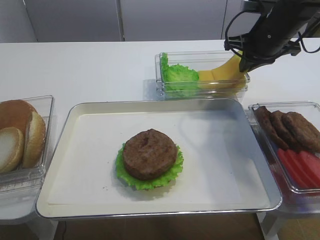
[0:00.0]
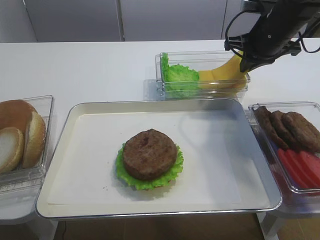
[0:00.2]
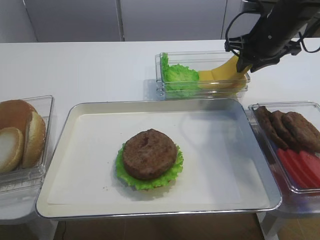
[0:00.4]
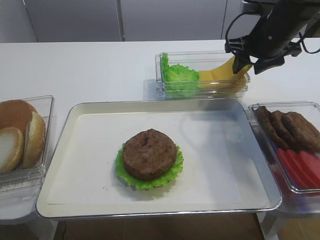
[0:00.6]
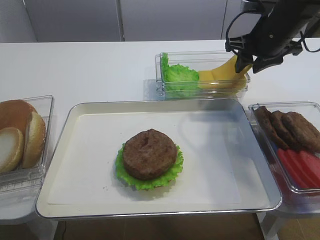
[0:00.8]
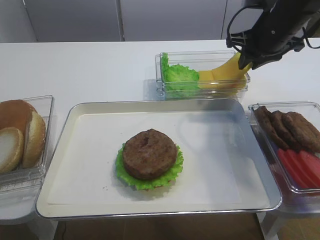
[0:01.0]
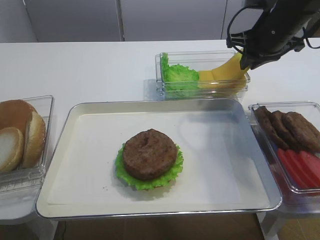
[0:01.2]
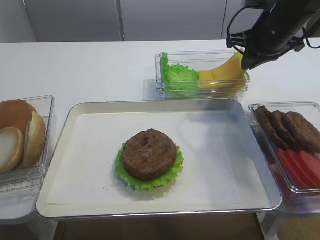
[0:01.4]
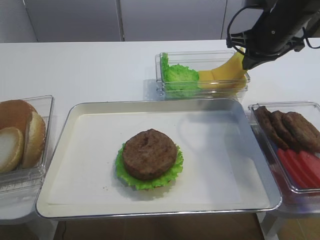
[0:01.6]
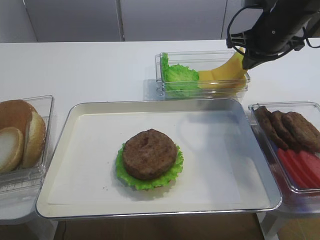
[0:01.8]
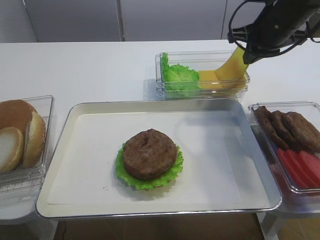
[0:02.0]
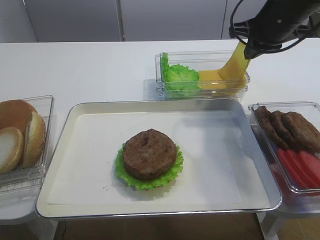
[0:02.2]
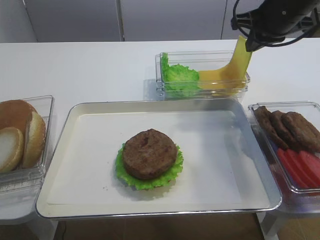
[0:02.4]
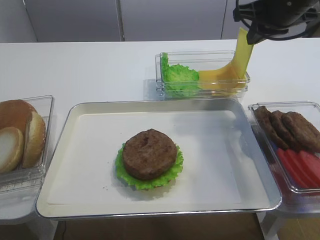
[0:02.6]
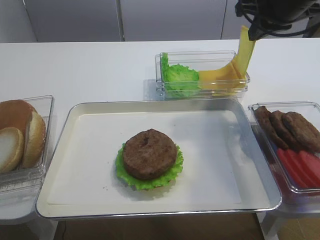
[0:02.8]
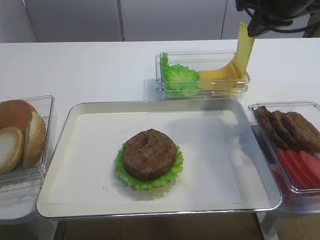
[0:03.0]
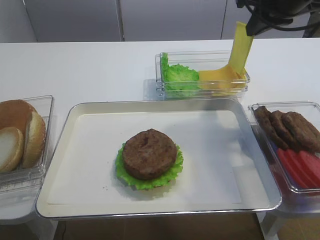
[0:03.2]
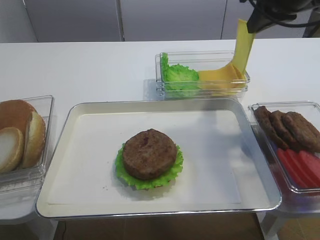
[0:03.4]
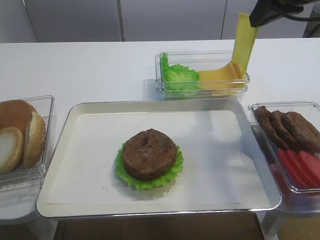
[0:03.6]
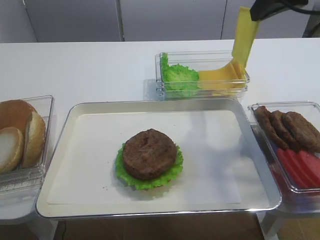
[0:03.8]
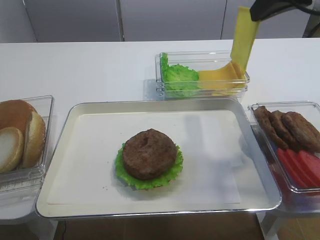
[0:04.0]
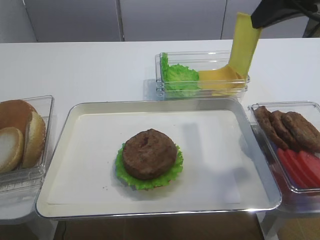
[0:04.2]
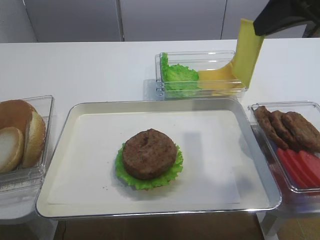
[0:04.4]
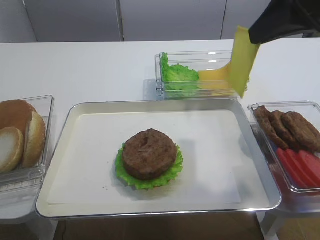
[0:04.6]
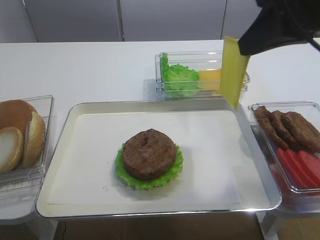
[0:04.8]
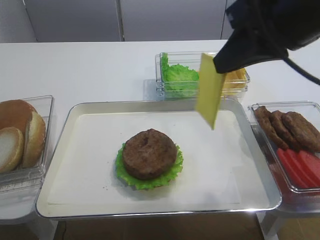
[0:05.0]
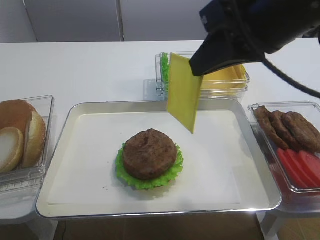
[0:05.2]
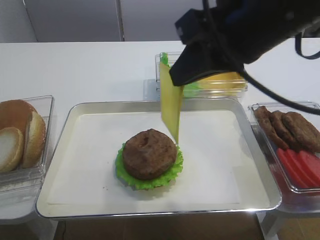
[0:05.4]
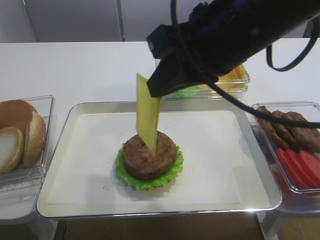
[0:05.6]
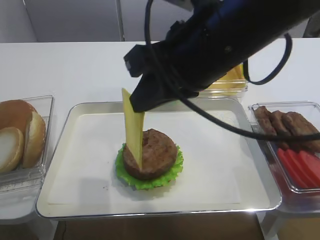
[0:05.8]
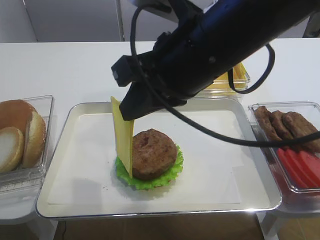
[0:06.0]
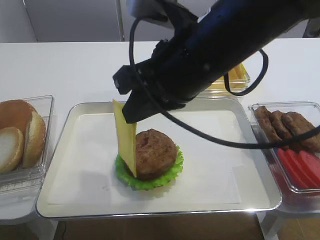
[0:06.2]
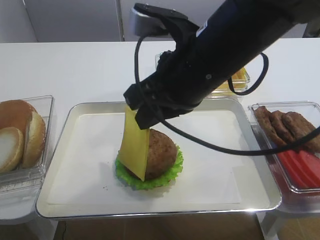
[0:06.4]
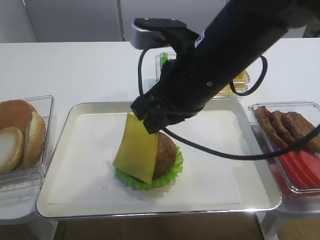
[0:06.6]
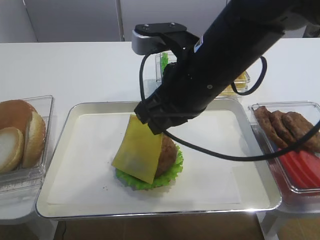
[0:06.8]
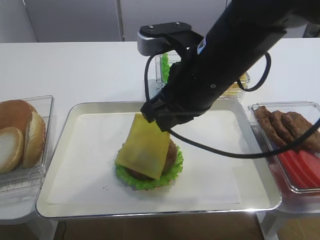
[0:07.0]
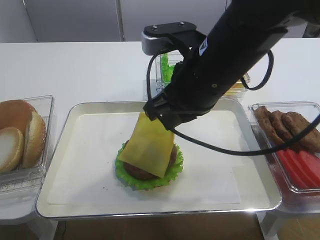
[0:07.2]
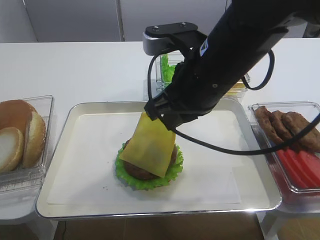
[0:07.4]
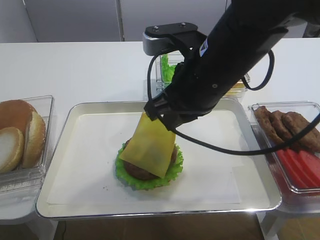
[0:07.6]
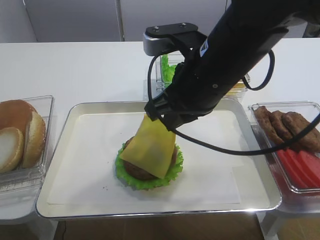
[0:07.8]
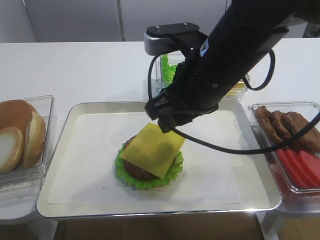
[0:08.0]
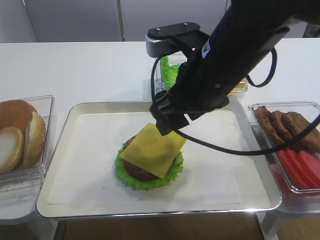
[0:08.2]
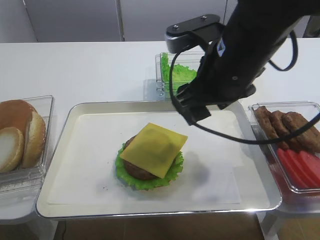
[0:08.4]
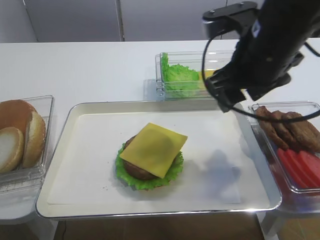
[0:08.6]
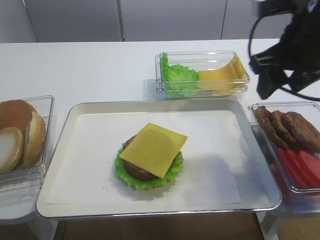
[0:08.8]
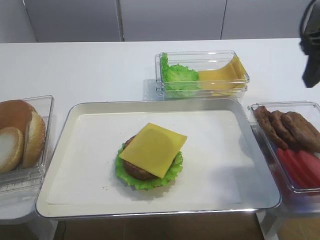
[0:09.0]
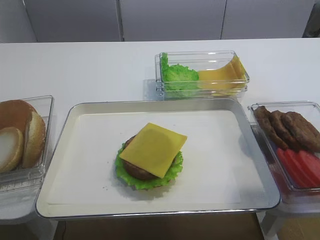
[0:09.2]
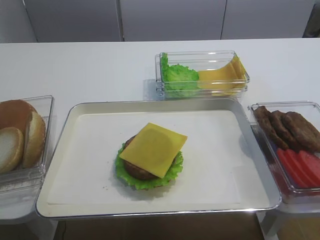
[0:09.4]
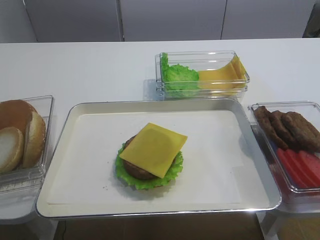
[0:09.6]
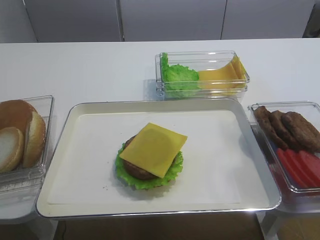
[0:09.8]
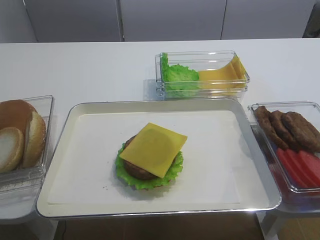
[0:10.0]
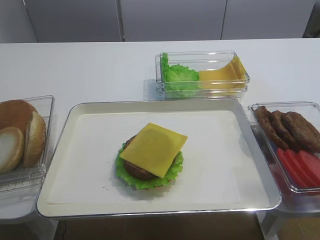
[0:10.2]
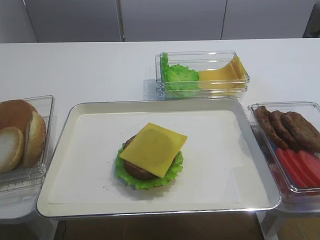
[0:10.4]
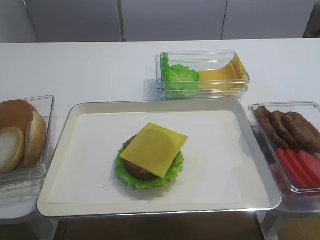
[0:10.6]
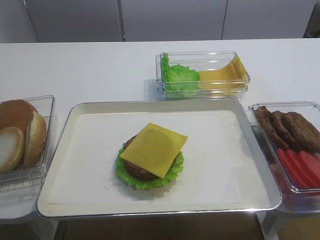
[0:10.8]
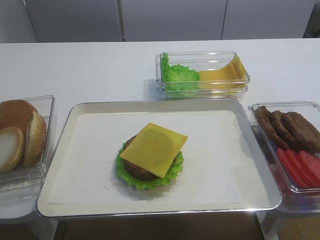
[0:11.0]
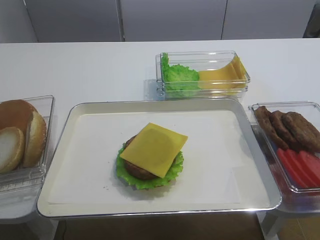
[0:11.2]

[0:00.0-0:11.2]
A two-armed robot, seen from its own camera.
Step, 0:00.0 to 0:02.8: Pick up the cheese slice with the right gripper.
Step, 0:03.0 to 0:08.2: Place the cheese slice on the cutlet with the right gripper.
0:00.0 to 0:01.6: The right gripper opens, then closes again.
0:01.6 to 0:03.2: The right gripper travels upward by about 10 cm.
0:03.2 to 0:04.8: The right gripper shifts roughly 10 cm backward.
0:04.8 to 0:06.4: The right gripper is displaced to the left and downward by about 15 cm.
0:06.4 to 0:08.0: The right gripper opens its fingers.
0:08.0 to 0:09.6: The right gripper moves to the right and backward, about 20 cm, and opens its fingers.
0:09.6 to 0:11.2: The right gripper goes approximately 20 cm backward and downward.

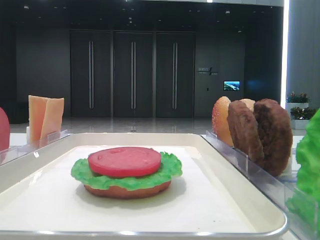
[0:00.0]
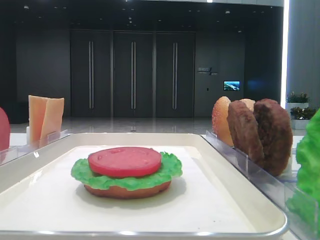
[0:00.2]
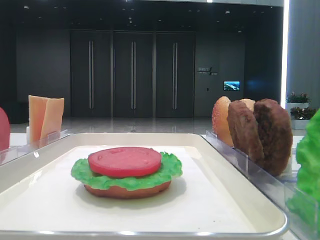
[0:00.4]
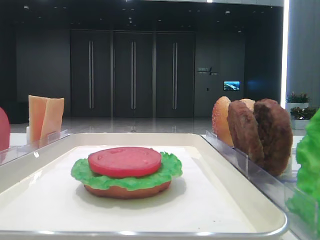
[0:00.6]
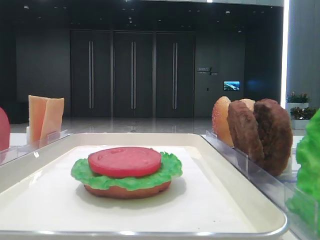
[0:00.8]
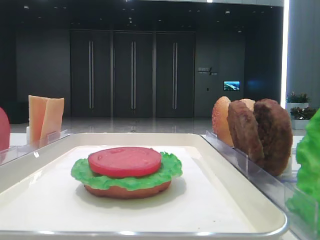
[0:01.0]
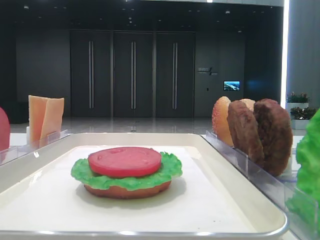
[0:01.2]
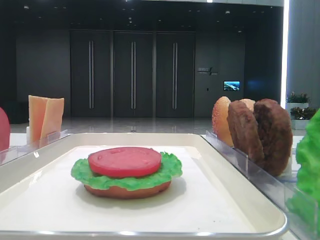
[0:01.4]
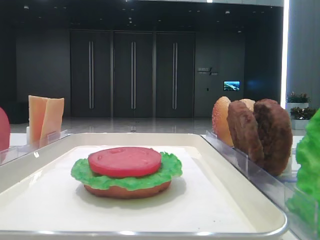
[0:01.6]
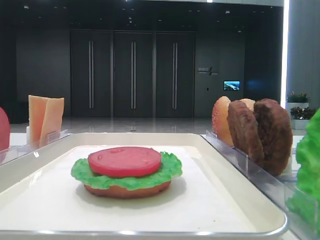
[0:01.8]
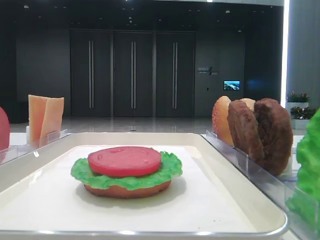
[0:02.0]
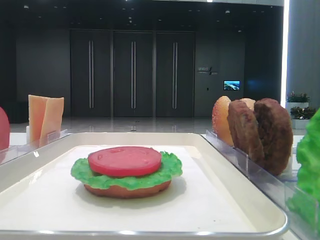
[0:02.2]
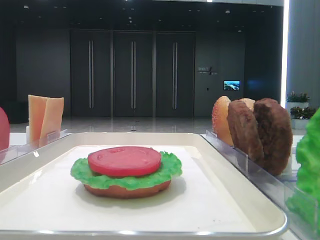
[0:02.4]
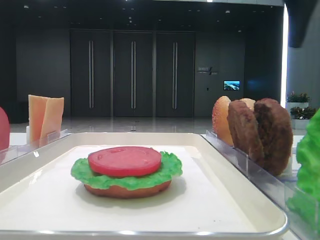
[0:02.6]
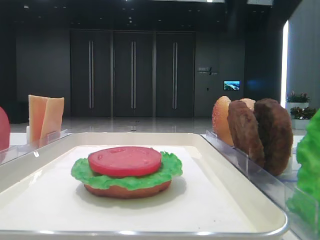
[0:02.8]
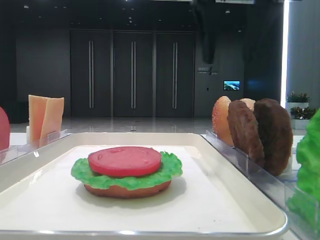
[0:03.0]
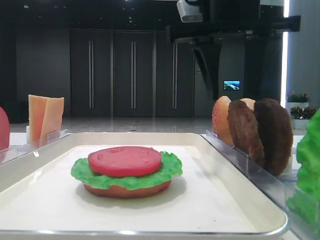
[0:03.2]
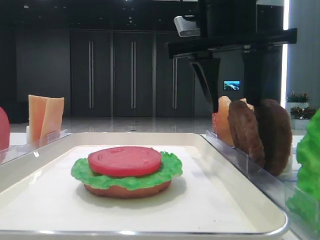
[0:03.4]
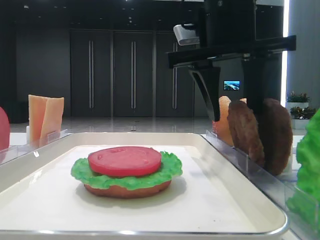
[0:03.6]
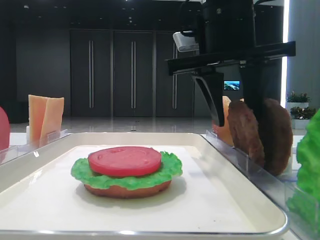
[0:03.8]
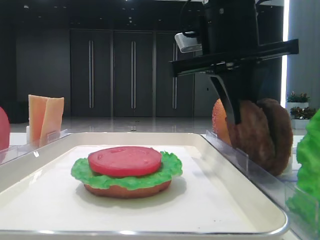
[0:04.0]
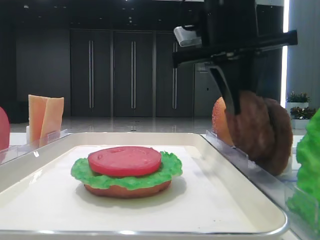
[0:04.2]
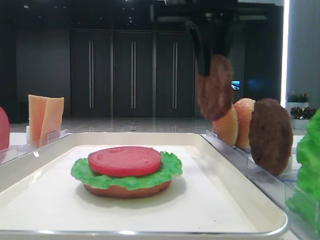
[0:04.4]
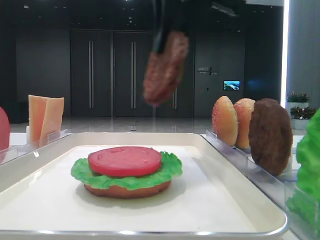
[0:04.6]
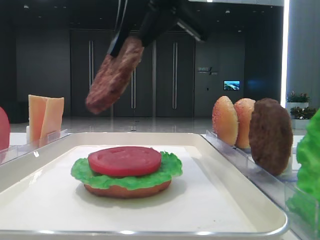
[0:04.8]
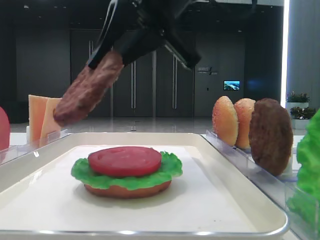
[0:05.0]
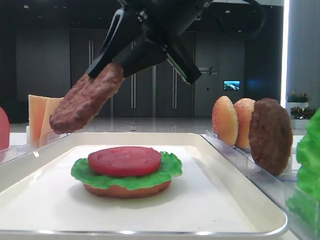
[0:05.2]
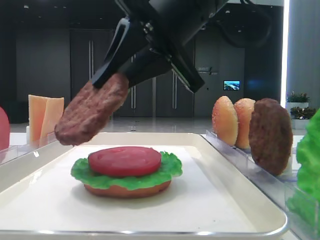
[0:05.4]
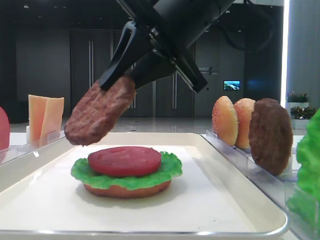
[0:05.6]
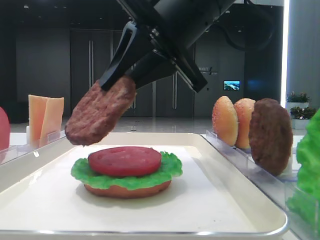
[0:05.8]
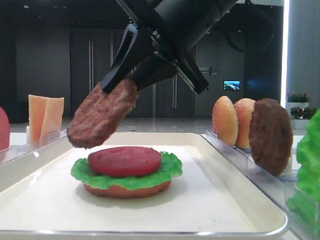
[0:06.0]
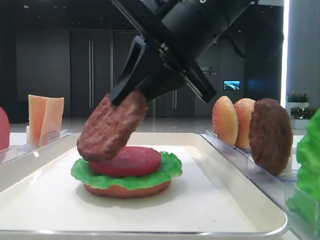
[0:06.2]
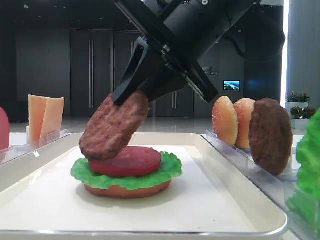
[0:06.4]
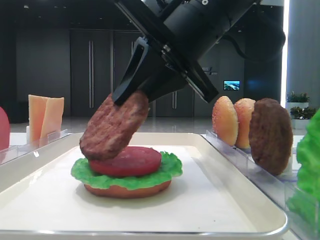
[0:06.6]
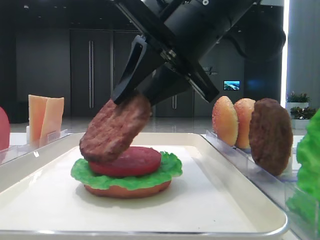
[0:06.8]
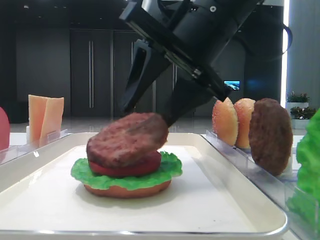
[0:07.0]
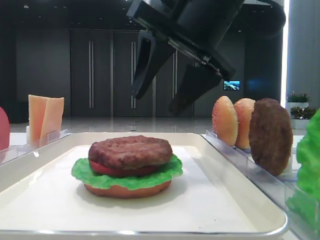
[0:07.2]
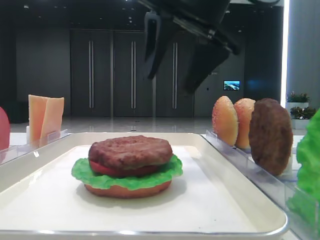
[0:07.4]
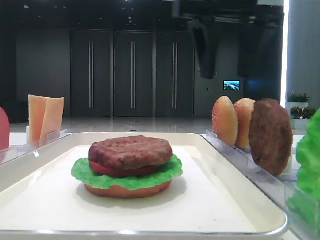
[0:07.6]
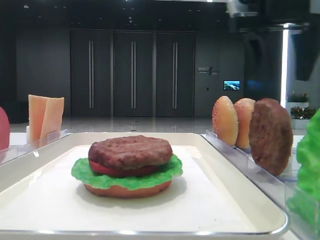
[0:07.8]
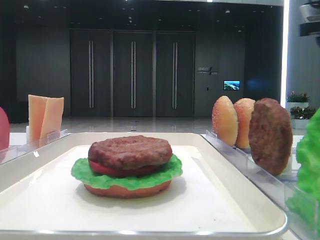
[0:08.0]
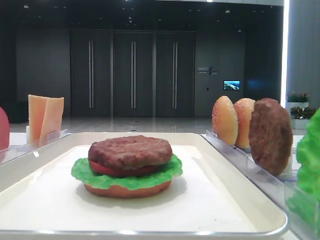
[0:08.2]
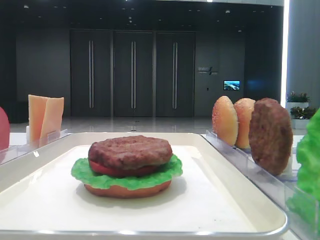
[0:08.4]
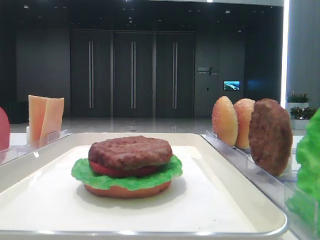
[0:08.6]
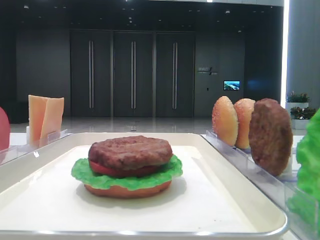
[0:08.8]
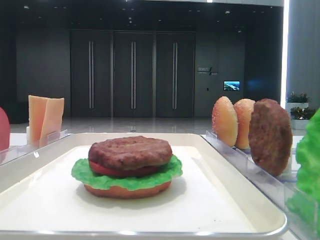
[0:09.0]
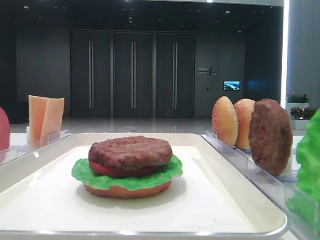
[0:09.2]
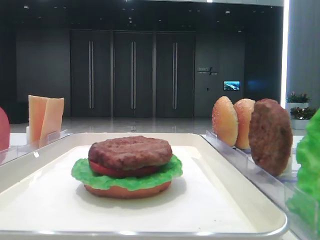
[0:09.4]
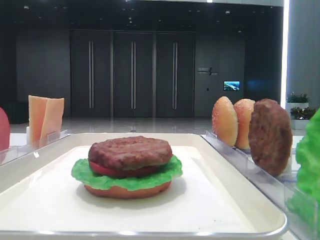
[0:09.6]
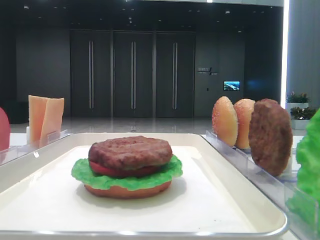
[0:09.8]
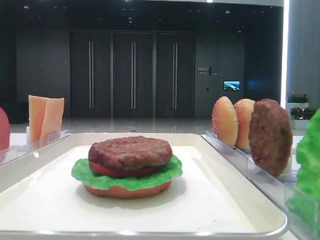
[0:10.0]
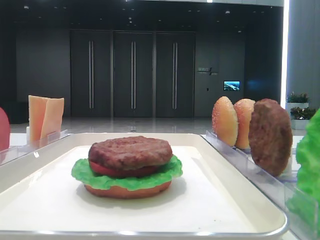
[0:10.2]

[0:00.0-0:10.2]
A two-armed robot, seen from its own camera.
Step, 0:00.0 to 0:03.8: Grab the patty with the right hand.
Step, 0:04.0 to 0:07.0: Place the patty on the tomato slice with the right hand.
0:01.4 to 0:03.0: The right gripper moves forward and to the left, about 35 cm.
0:03.0 to 0:04.4: The right gripper reaches approximately 10 cm downward, then returns, and closes.
0:04.4 to 0:05.8: The right gripper ends up about 5 cm from where it was.
0:05.8 to 0:07.2: The right gripper opens its fingers.
0:07.2 to 0:08.8: The right gripper heads to the right and backward, covering some 30 cm.

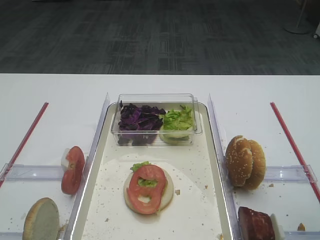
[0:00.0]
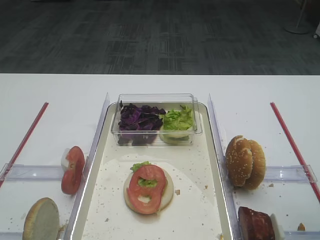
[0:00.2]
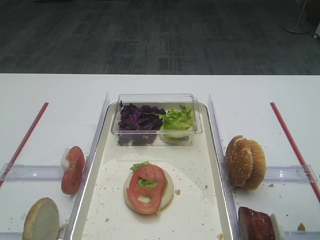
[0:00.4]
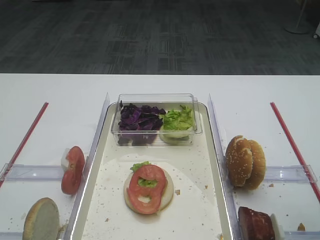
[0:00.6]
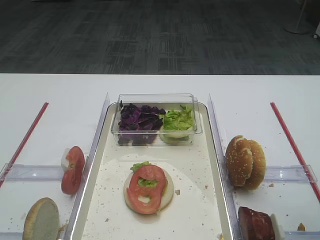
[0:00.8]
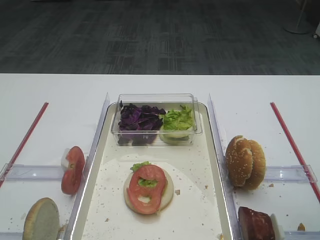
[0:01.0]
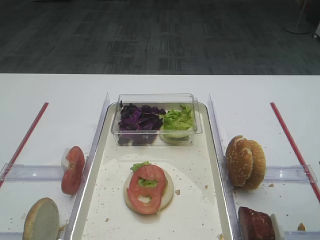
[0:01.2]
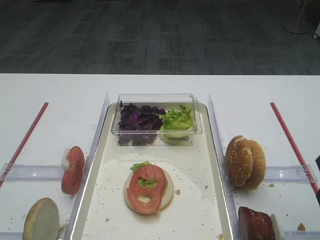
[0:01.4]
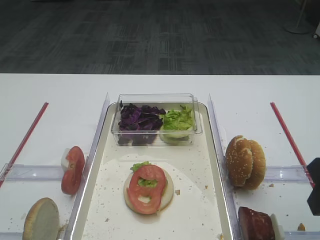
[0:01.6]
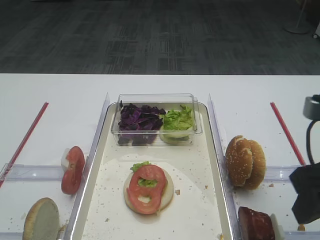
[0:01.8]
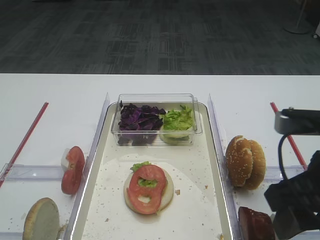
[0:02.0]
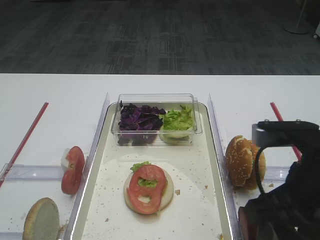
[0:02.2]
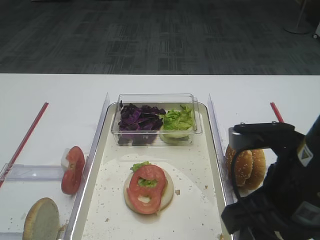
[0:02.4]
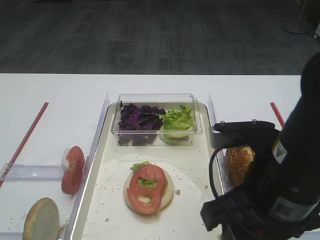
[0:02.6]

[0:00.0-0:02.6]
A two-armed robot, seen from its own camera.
0:01.2 to 0:02.6: The right gripper travels to the left by some 15 cm.
